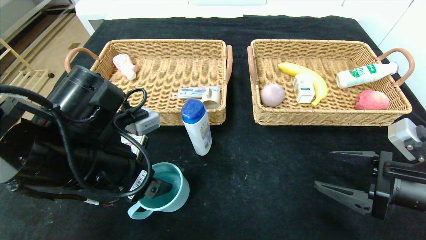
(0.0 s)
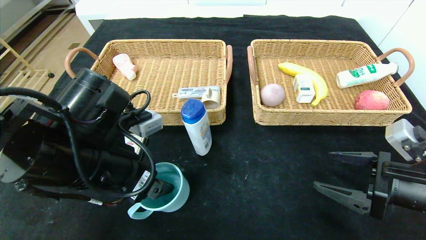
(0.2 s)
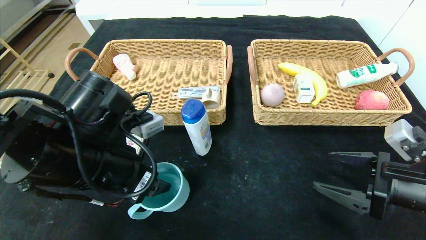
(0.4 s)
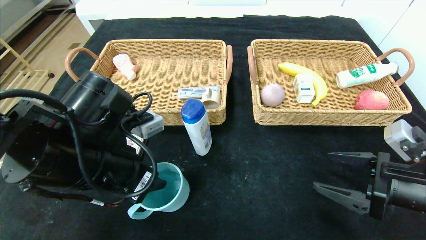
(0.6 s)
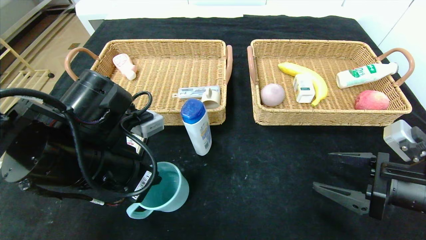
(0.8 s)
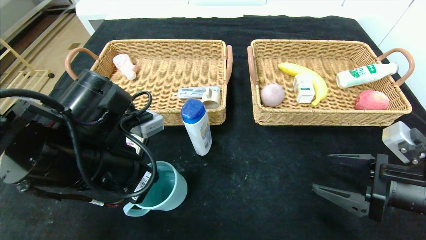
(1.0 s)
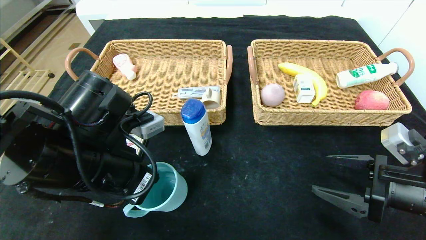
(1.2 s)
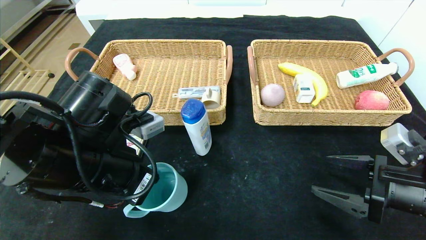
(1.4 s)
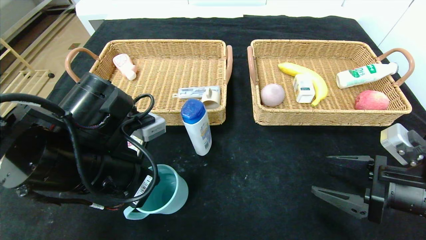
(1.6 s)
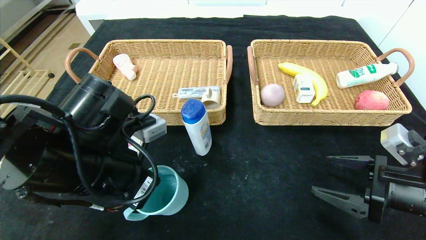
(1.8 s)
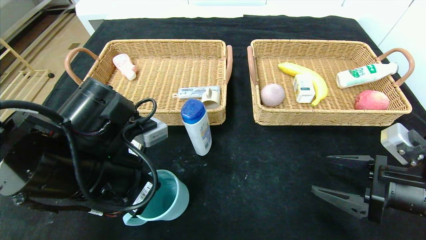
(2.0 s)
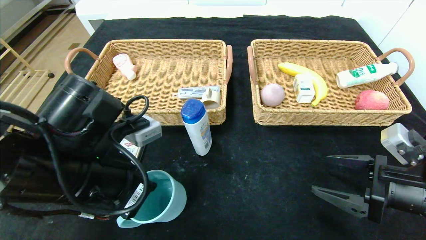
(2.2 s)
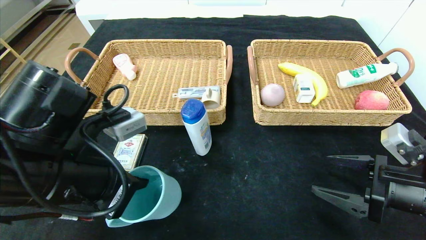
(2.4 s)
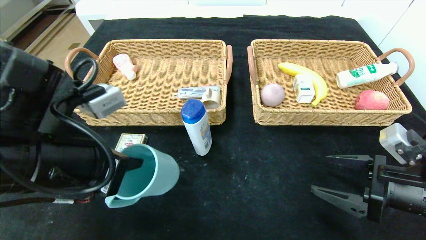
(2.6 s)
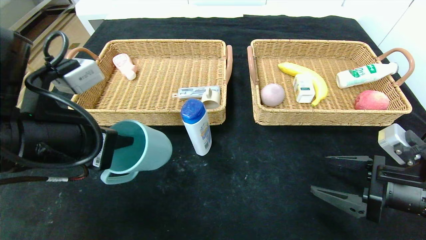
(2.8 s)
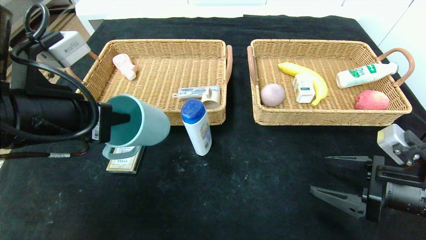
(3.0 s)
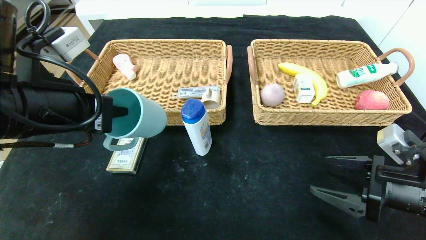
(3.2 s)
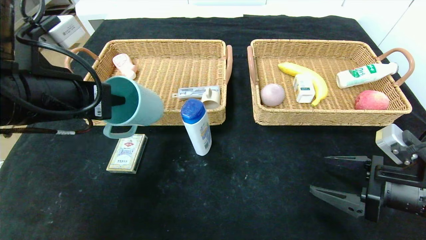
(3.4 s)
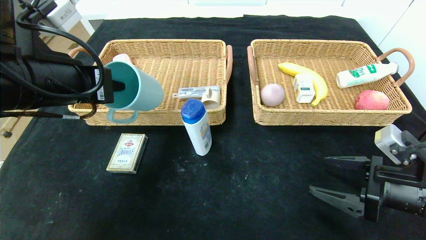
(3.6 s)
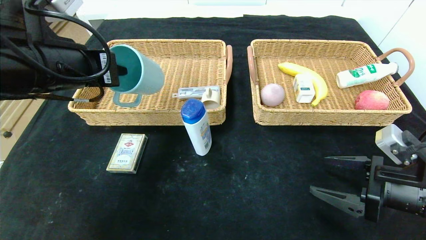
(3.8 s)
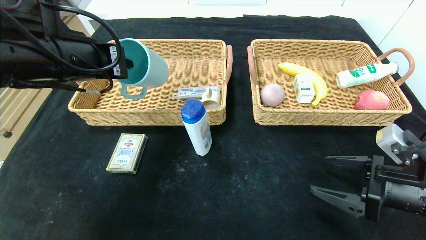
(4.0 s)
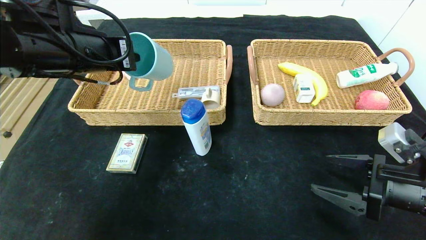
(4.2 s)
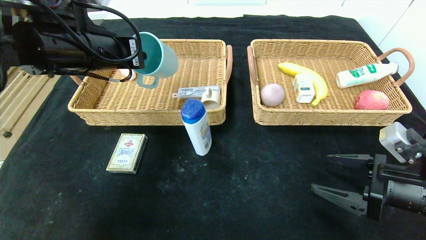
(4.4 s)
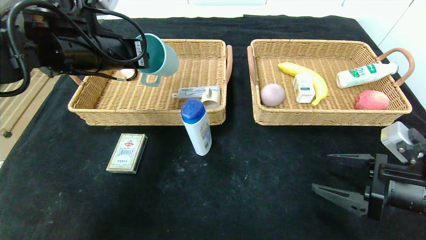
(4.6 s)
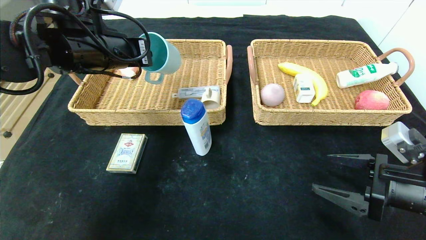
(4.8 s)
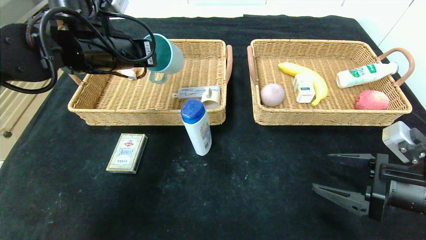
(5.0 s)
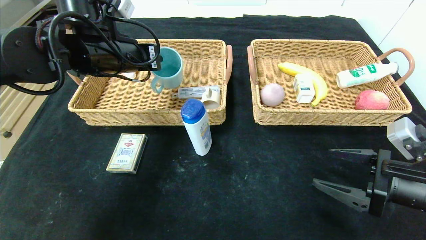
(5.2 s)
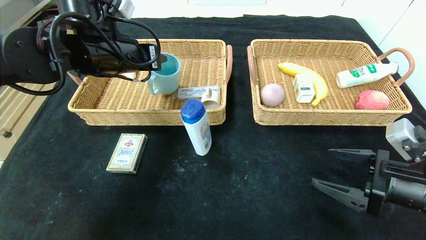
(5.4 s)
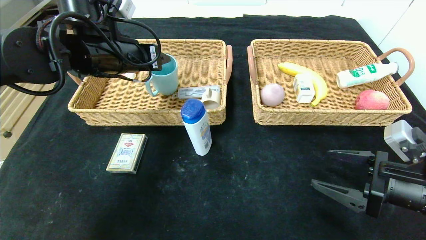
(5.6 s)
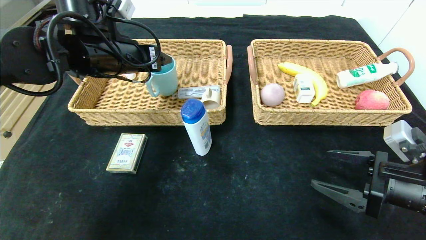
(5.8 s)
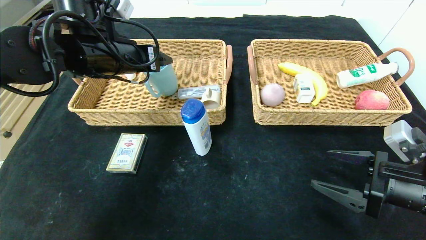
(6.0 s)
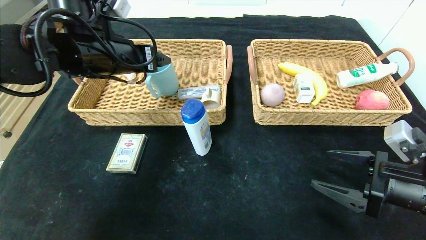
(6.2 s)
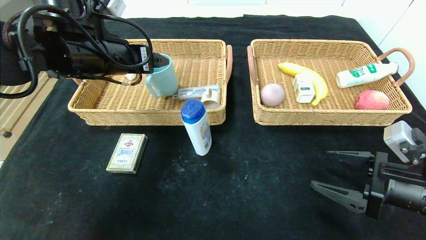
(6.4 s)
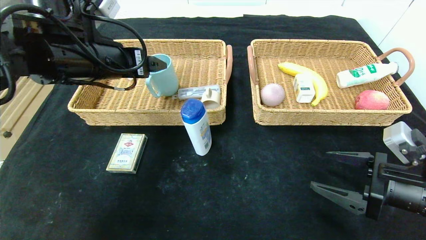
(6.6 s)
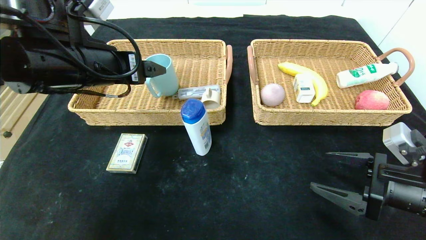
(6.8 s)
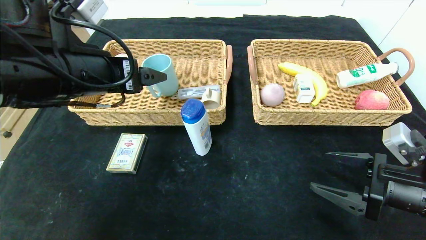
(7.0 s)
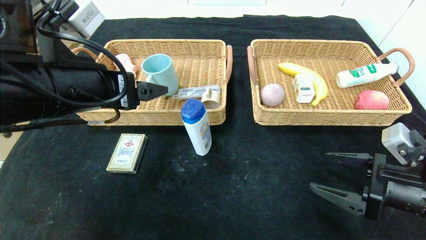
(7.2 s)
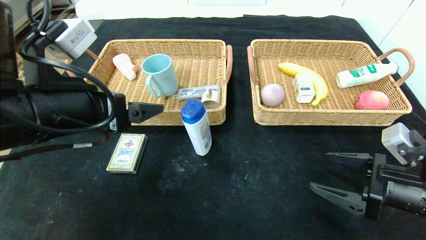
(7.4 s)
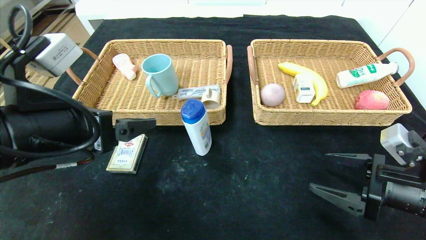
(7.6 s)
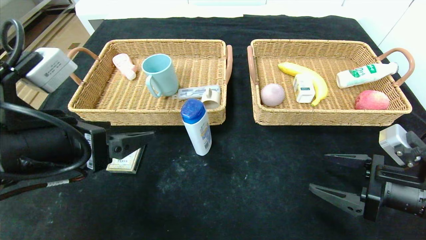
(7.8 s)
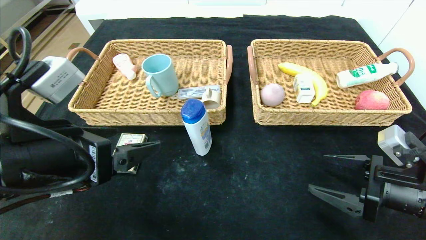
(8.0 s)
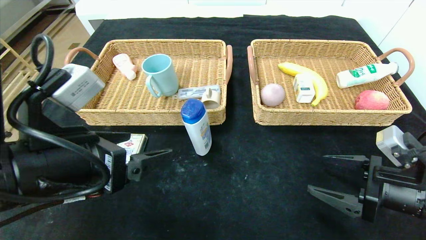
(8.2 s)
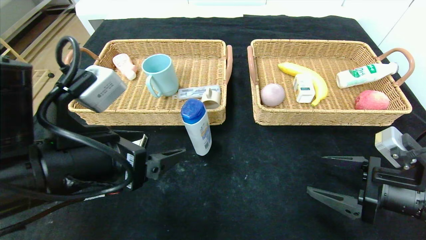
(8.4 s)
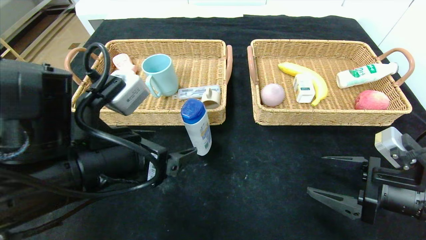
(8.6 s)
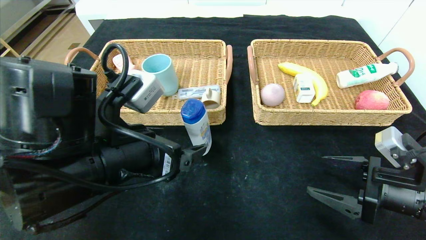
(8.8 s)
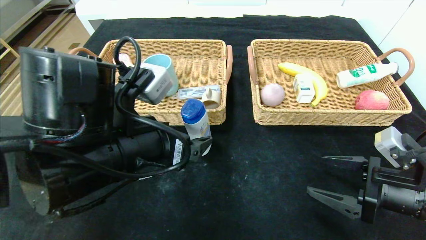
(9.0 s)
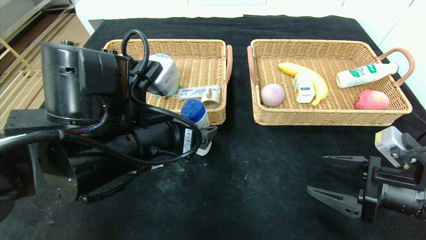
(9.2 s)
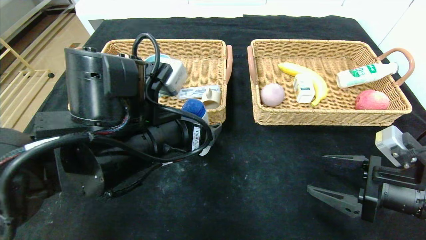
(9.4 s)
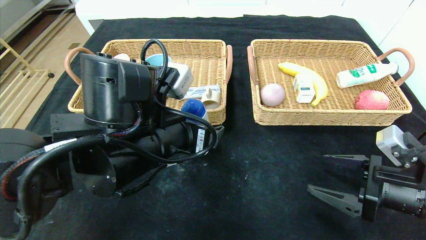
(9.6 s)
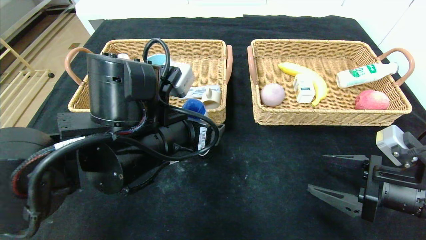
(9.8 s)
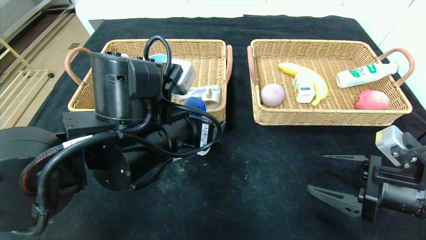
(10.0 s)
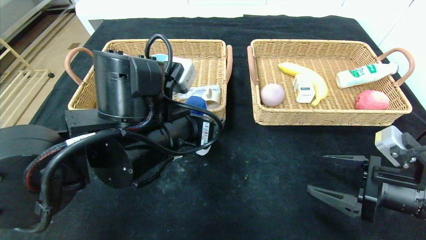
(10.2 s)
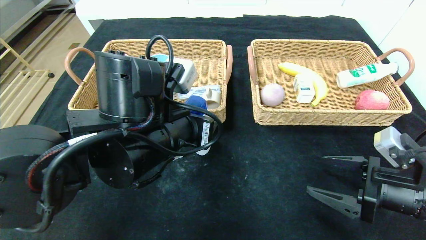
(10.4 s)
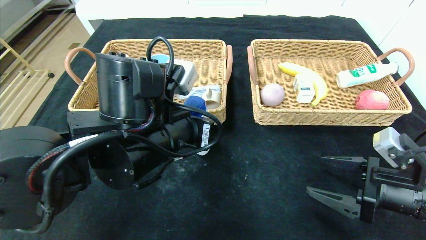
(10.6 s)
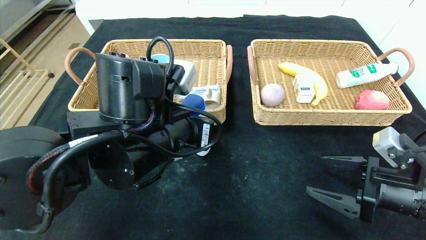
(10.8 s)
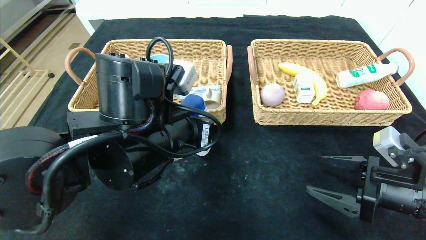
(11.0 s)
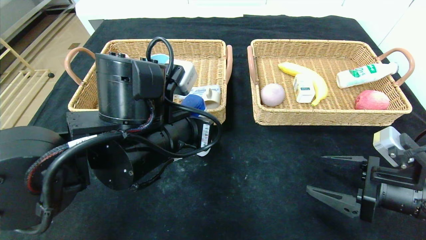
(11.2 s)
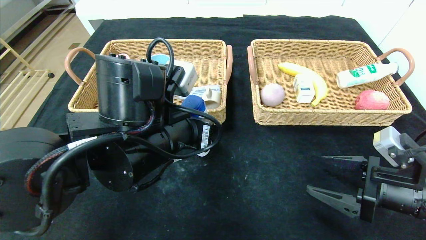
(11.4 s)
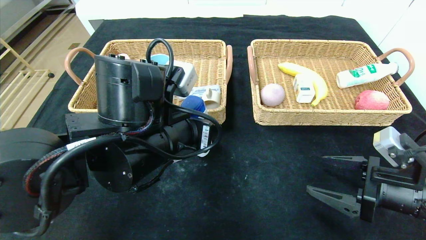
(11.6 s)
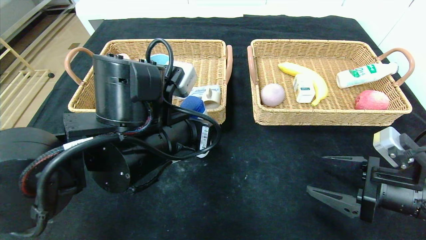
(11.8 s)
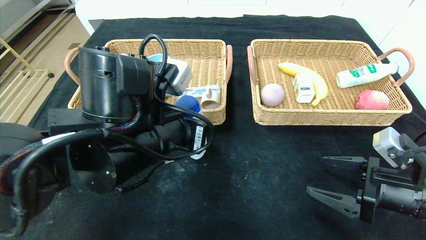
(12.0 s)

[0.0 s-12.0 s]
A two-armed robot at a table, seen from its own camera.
Step, 0.0 to 7.6 s: Pick up the blue cup and put it in the left basket.
0.0 to 1.6 s: The left gripper closes.
1.6 to 3.0 s: The left gripper shifts roughly 5 cm upward.
3.0 to 4.4 s: The left gripper moves forward, approximately 10 cm.
4.4 to 6.0 s: The left gripper opens its fingers.
6.0 to 7.6 s: The left gripper moves backward, some 15 cm.
7.6 to 9.0 s: The left gripper is displaced to the right by about 10 cm.
9.0 to 10.4 s: The left gripper closes up.
10.4 to 12.0 s: Both grippers stay about where they are.

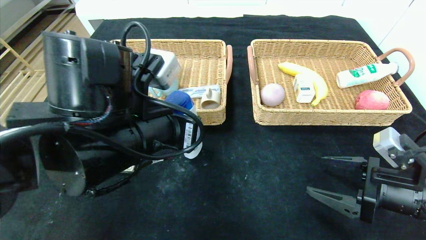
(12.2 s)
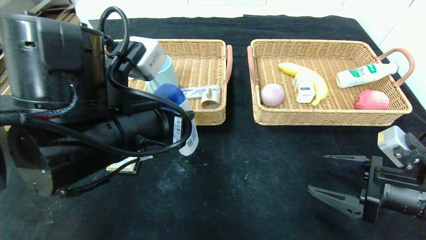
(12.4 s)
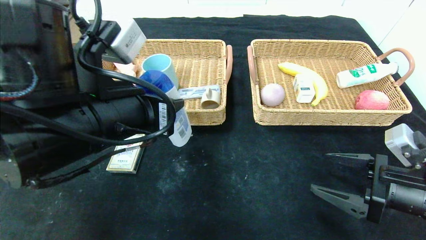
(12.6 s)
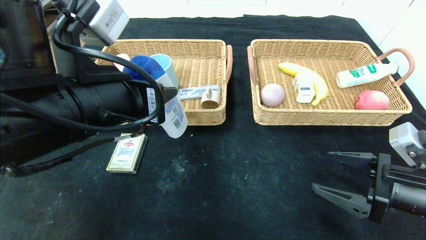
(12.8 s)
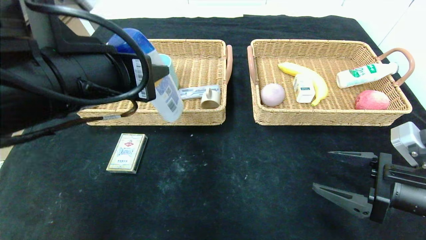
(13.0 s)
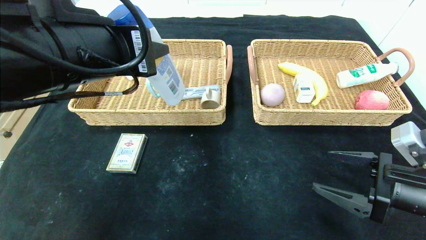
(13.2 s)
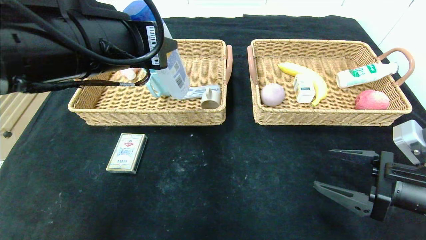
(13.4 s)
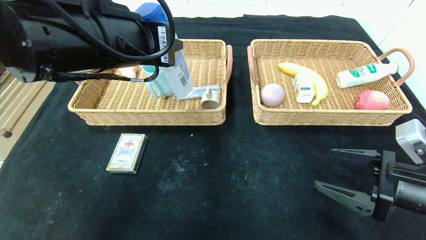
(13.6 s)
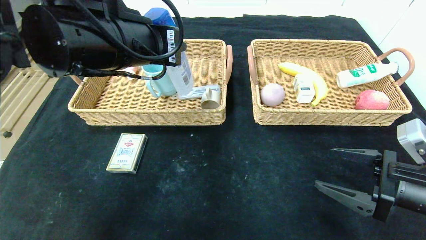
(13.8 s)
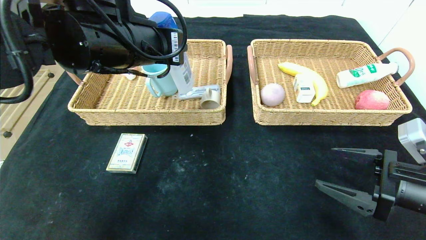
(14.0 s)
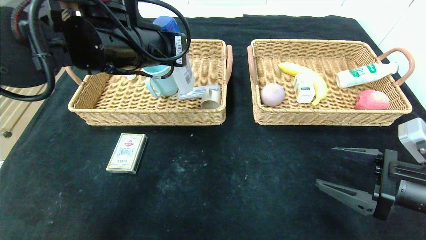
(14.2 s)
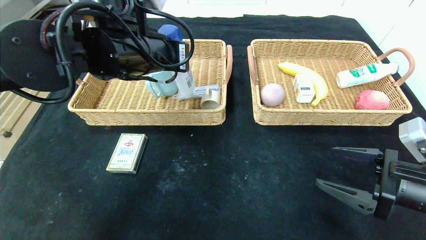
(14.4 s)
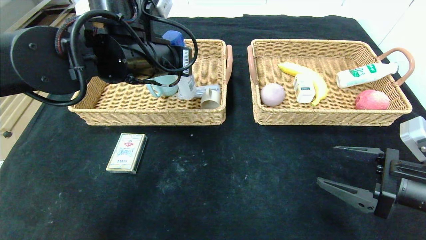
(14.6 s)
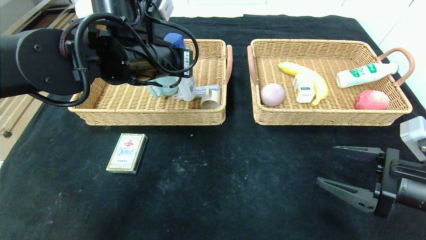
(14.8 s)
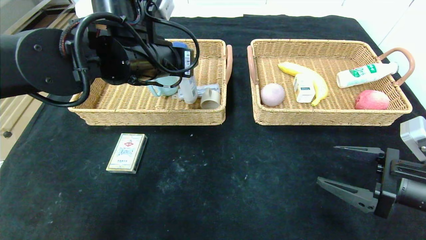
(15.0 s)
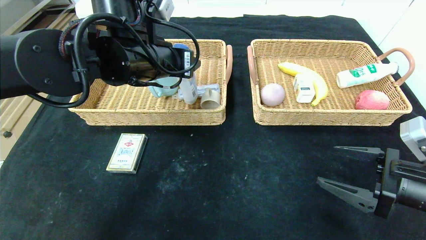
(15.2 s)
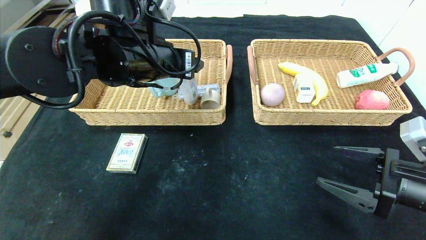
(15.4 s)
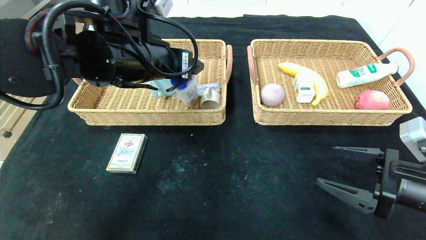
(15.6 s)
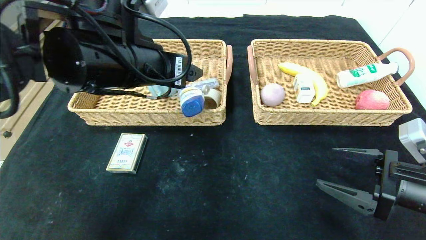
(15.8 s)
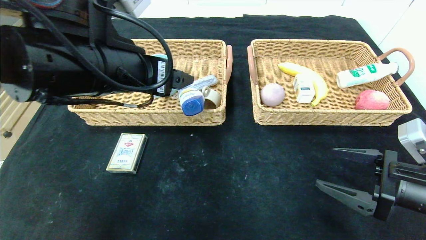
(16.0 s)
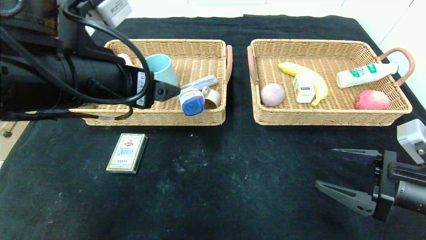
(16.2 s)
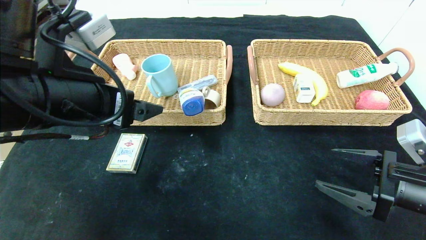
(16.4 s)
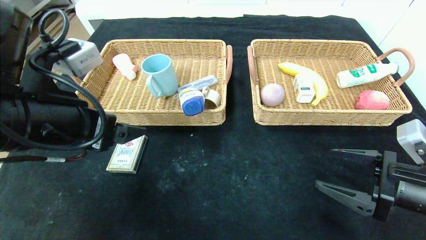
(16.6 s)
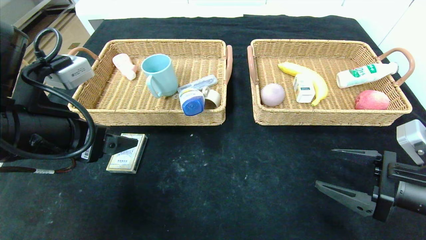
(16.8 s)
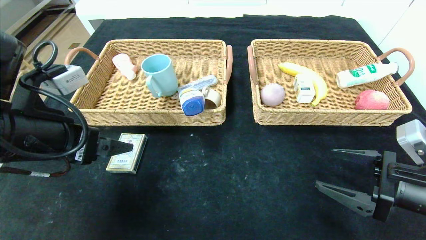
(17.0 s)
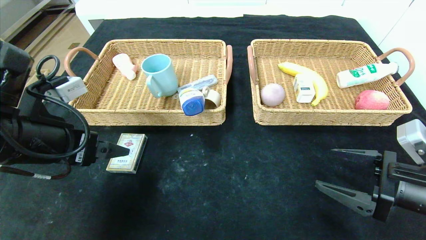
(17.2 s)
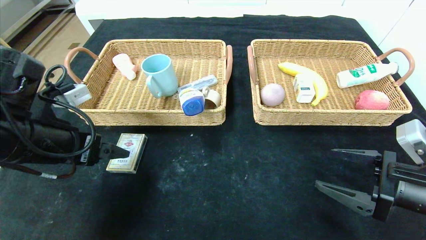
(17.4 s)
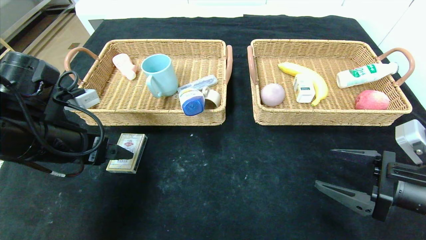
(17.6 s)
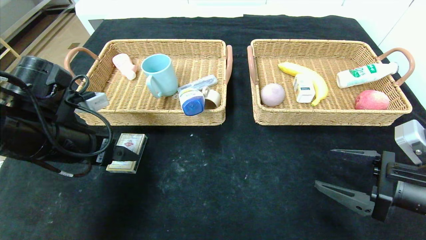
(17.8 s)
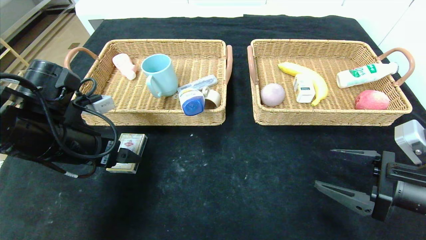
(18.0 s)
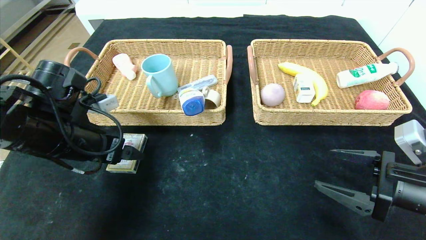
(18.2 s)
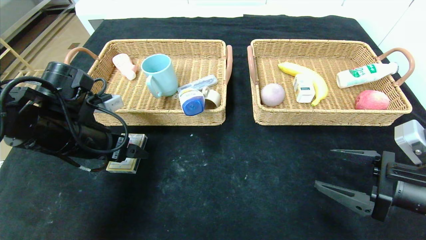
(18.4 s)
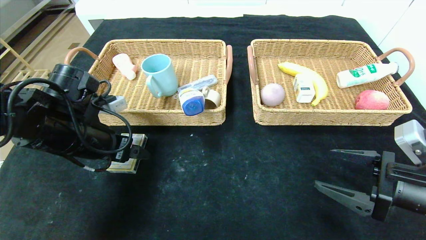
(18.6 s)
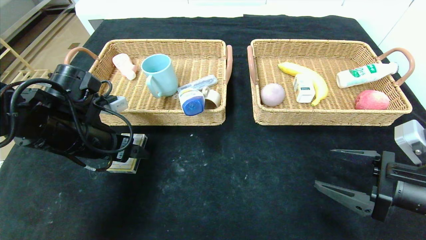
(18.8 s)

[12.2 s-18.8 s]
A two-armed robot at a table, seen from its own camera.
Step, 12.2 to 16.6 s: Pick up the shampoo and put it in the left basket.
12.2 to 13.8 s: The left gripper moves upward and forward, some 10 cm.
13.8 to 15.4 s: The left gripper heads forward, covering some 5 cm, and opens its fingers.
15.4 to 17.2 s: The left gripper travels to the left, backward and downward by some 20 cm.
17.2 to 18.8 s: The left gripper is displaced forward by roughly 5 cm.
